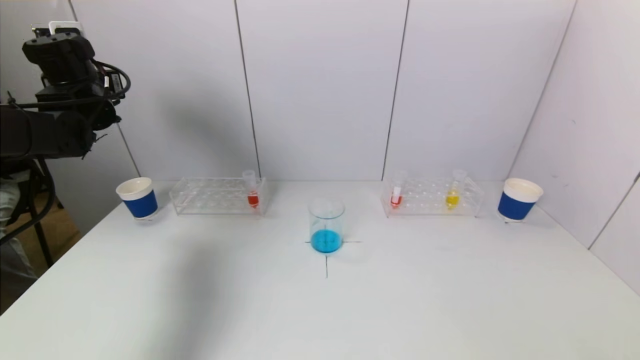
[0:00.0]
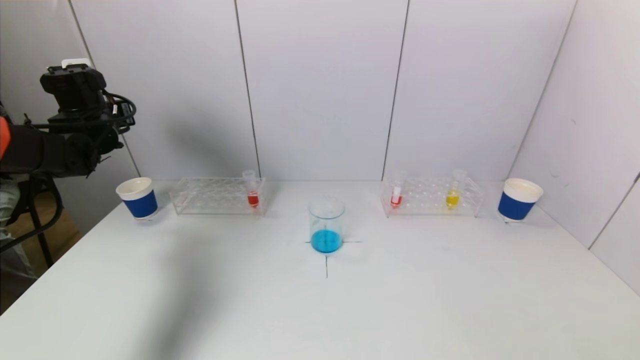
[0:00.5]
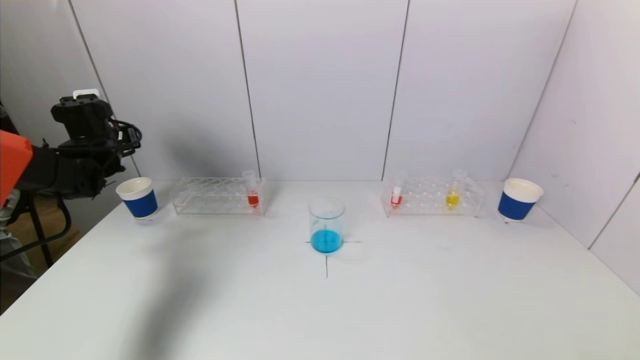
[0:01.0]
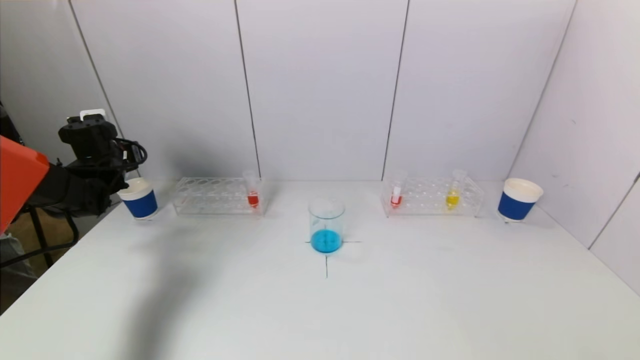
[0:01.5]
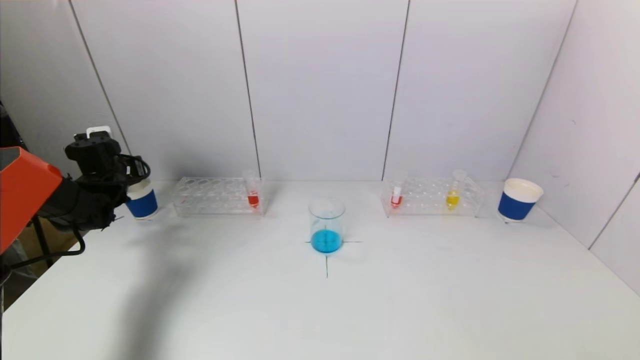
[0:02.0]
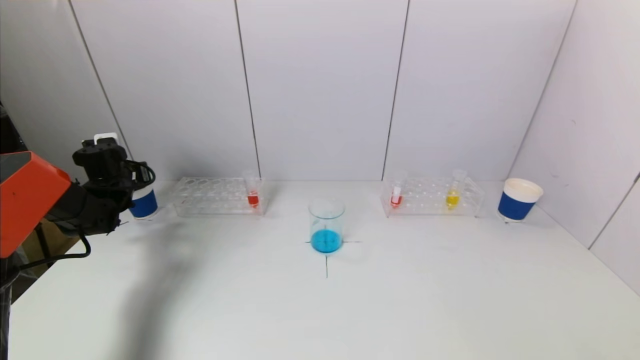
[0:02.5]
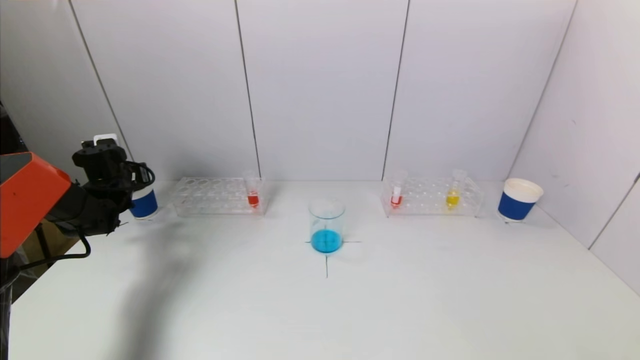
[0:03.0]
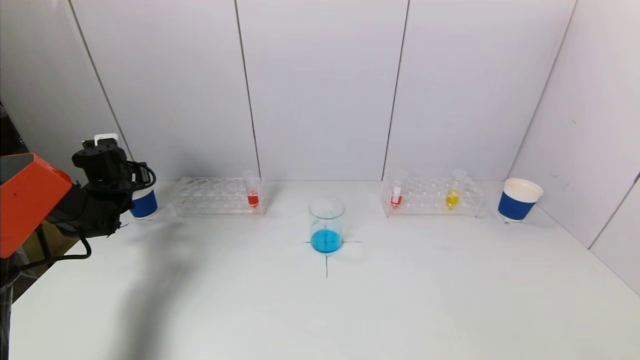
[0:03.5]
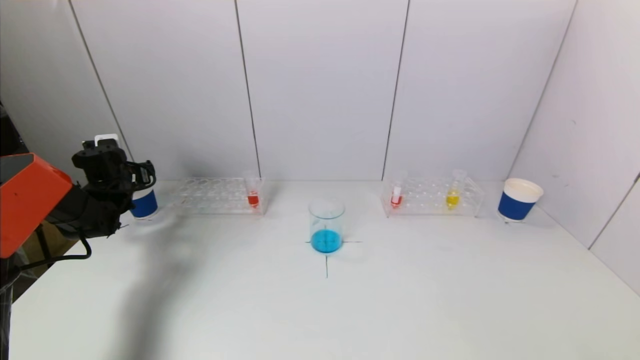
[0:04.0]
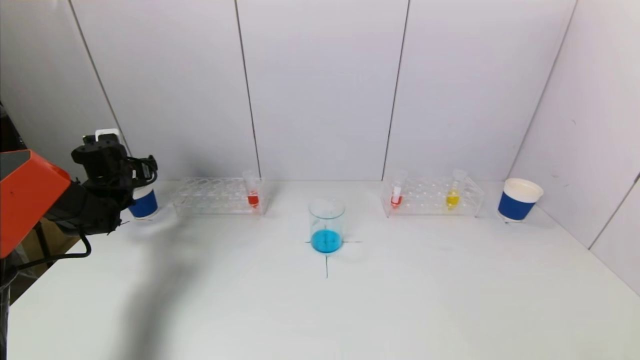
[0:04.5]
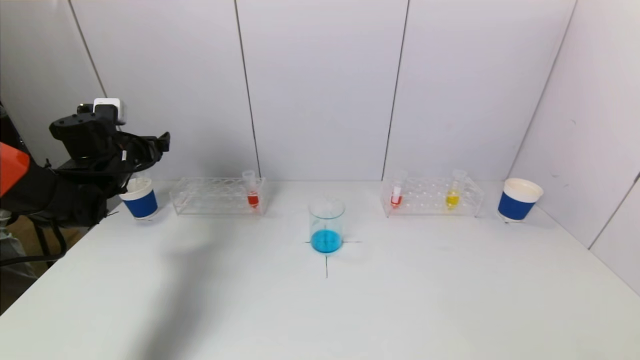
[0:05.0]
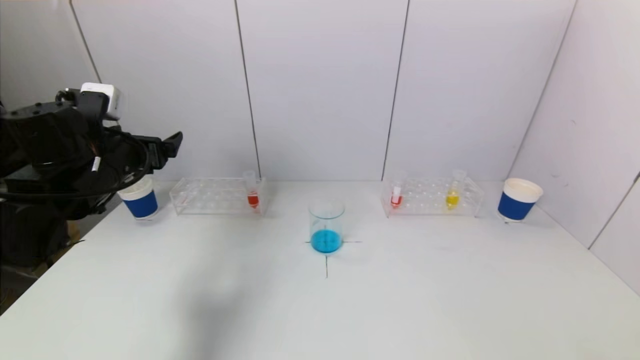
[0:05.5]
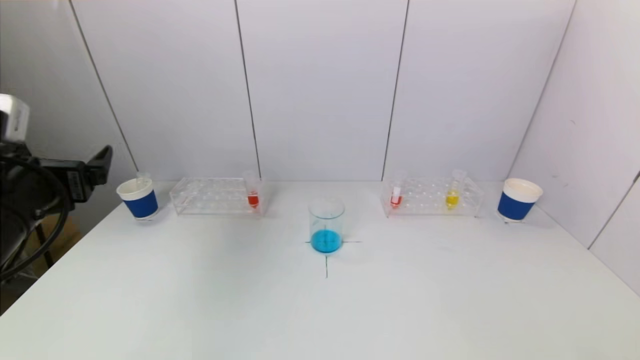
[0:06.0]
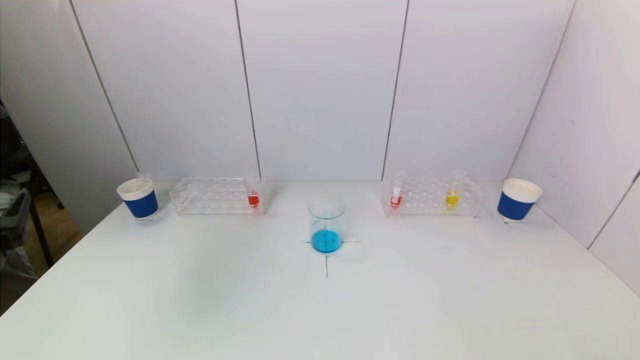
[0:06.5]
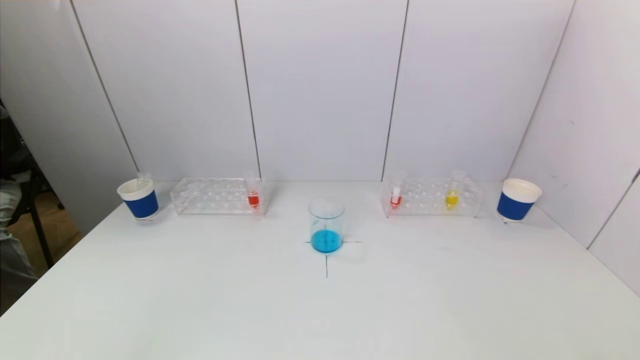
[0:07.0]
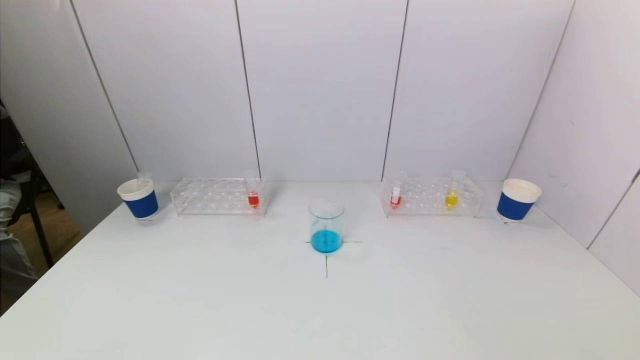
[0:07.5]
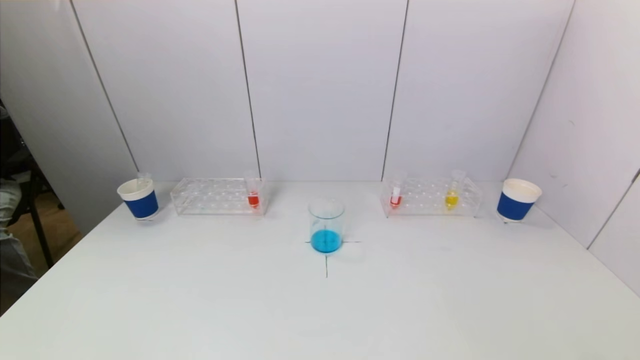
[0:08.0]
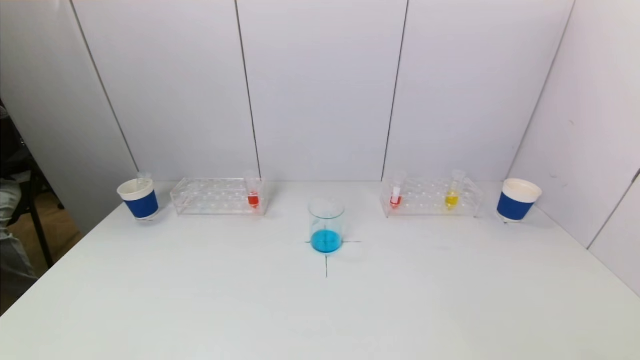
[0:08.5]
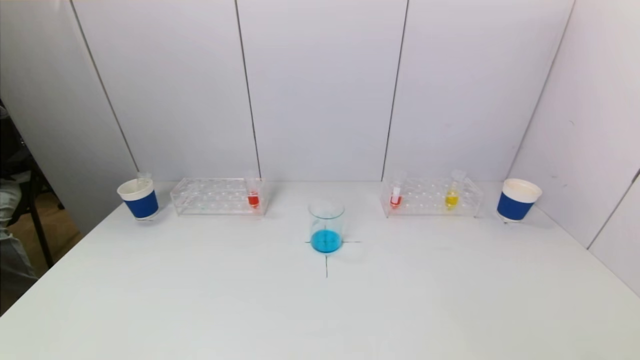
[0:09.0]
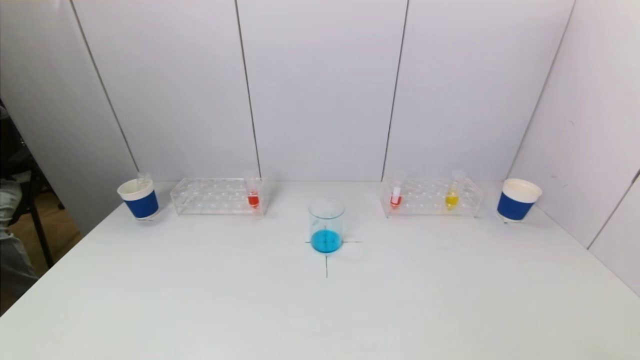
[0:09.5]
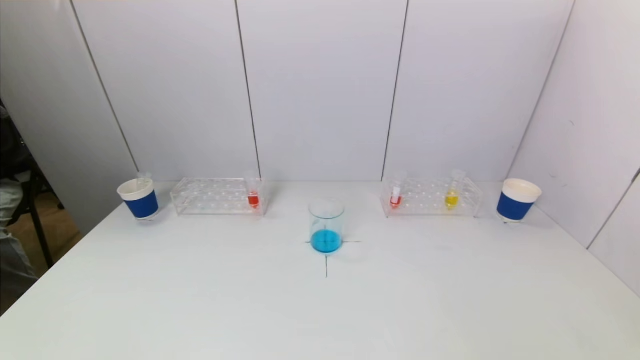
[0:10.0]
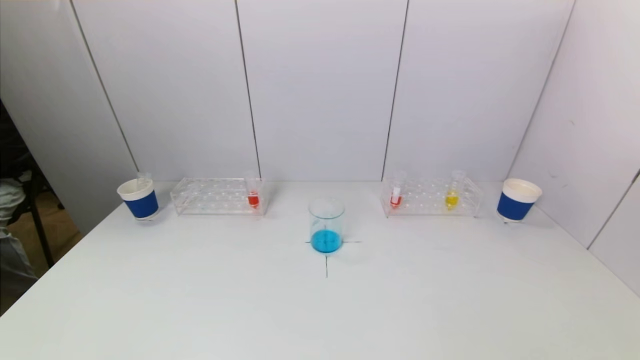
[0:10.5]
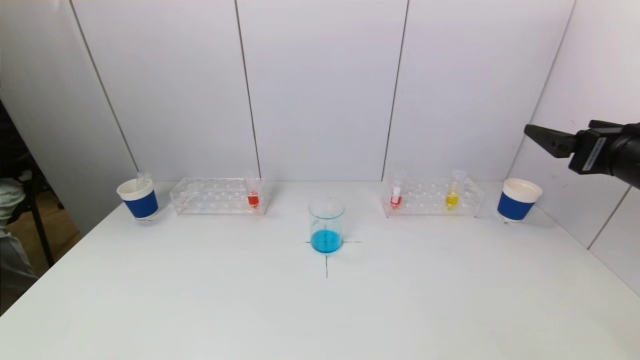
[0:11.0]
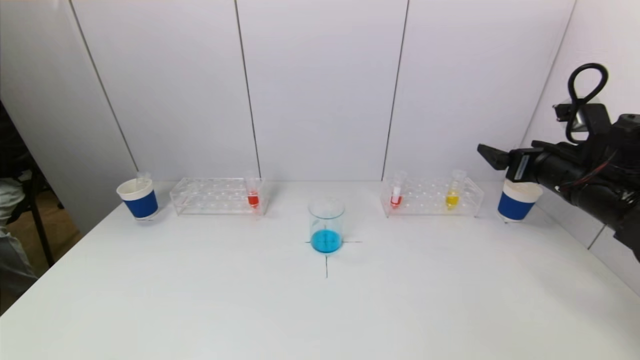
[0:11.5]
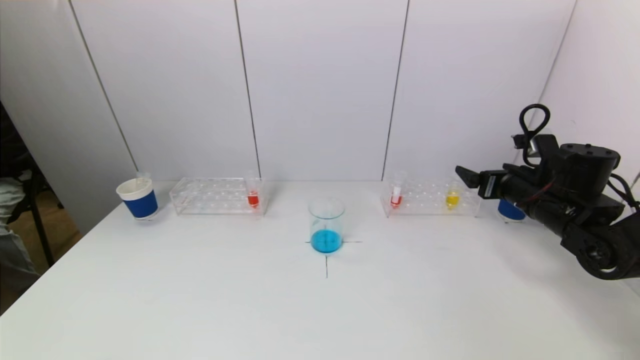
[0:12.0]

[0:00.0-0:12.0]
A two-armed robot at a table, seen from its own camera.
Task of the whole recording: pick up a test tube with pigment on left test tube rack and a test tube with pigment on right test tube rack by grippers and pour them into the beaker.
Step, 0:00.0 to 0:04.0: Place the test tube into the paper cup with the left gripper.
0:00.0 to 0:02.0: The left gripper goes approximately 15 cm downward.
0:02.0 to 0:04.0: The left gripper opens up.
0:04.0 to 0:06.0: The left gripper moves backward, upward and to the right, some 30 cm.
0:06.0 to 0:08.0: The left gripper heads backward and downward, covering approximately 25 cm.
0:10.0 to 0:12.0: The right gripper shifts approximately 35 cm forward.

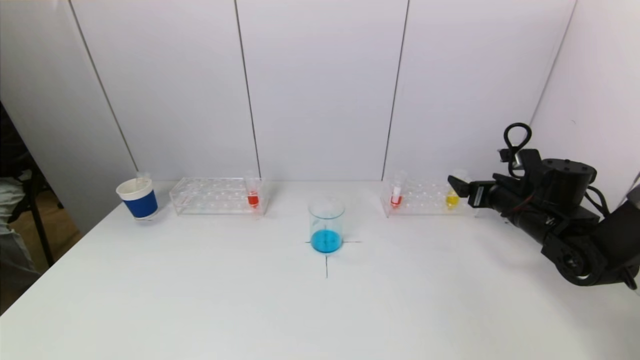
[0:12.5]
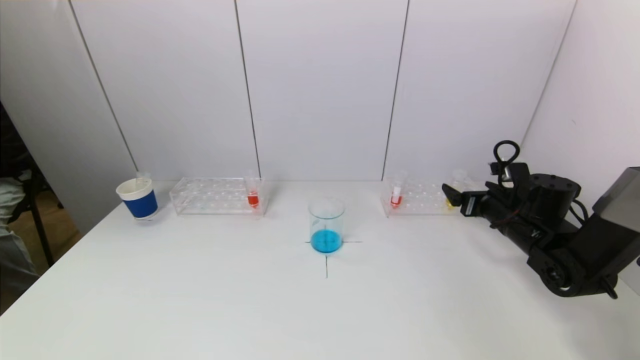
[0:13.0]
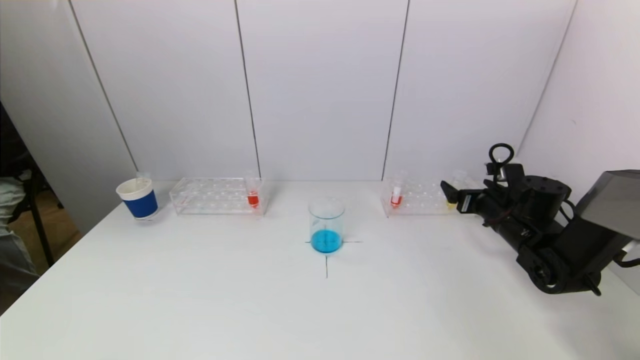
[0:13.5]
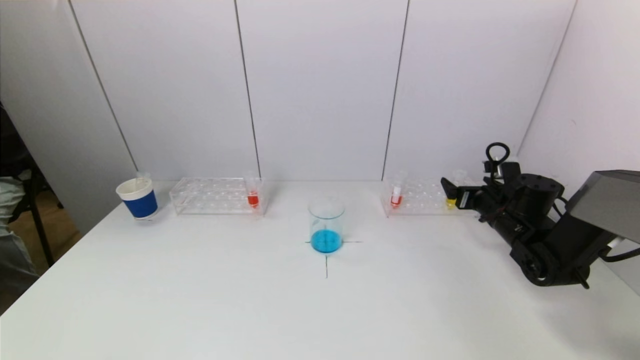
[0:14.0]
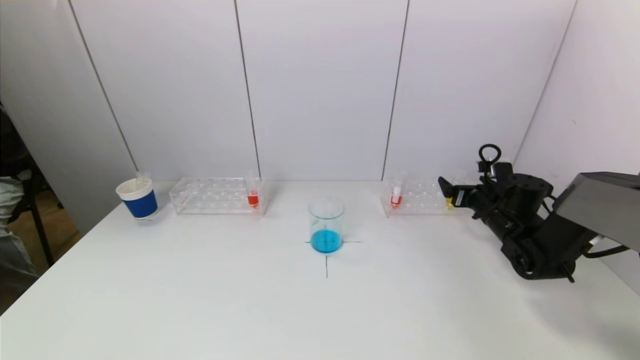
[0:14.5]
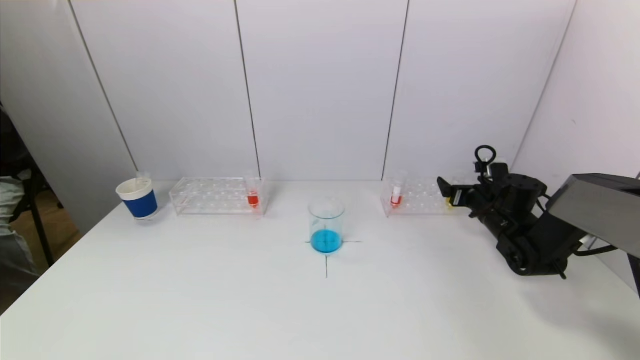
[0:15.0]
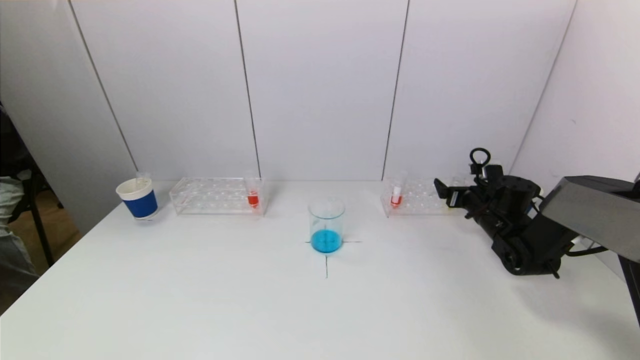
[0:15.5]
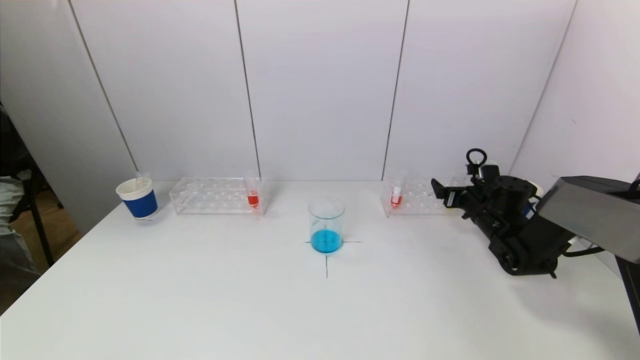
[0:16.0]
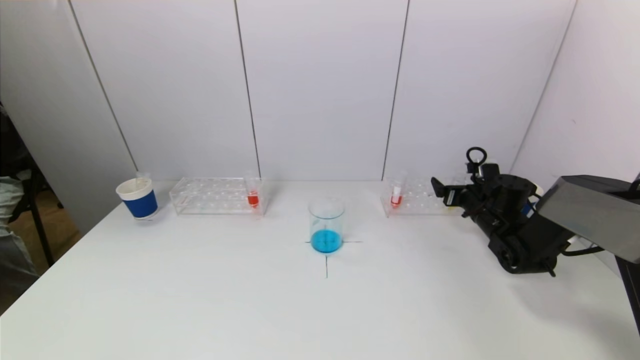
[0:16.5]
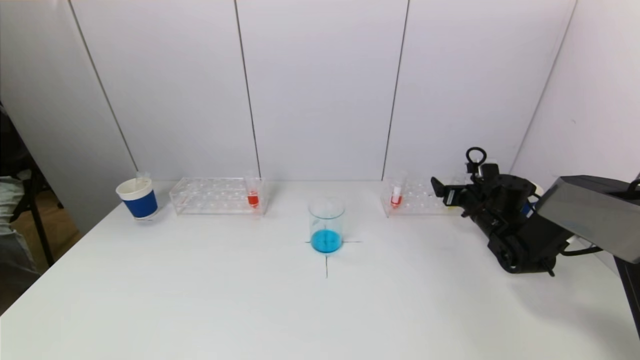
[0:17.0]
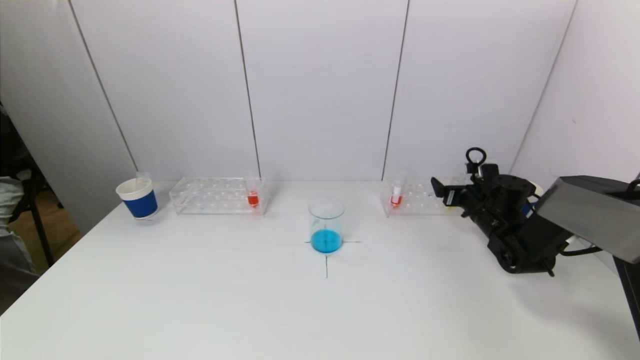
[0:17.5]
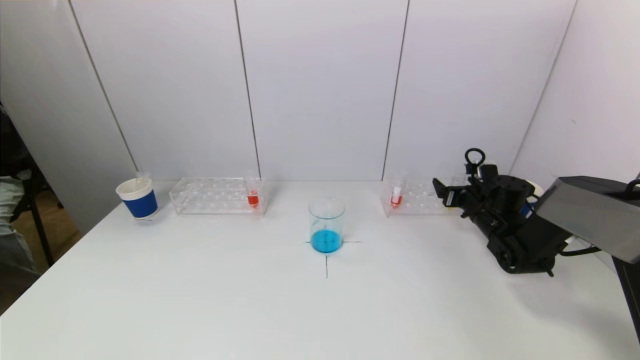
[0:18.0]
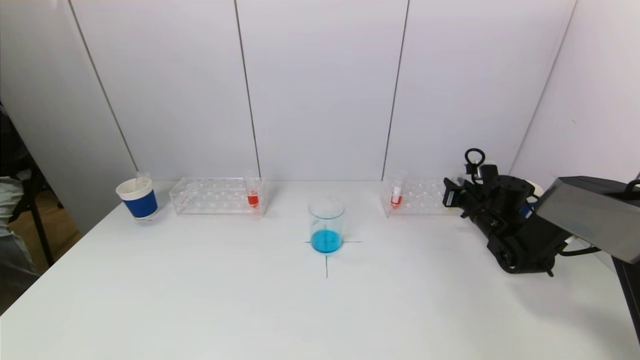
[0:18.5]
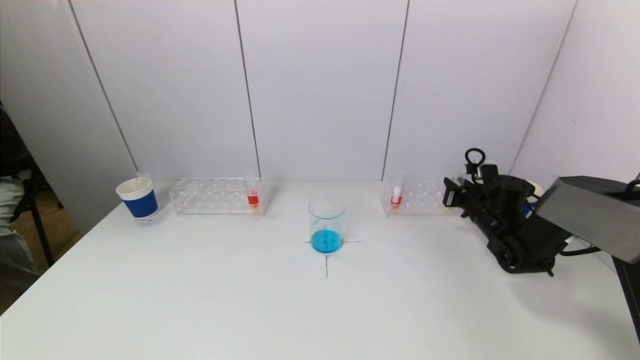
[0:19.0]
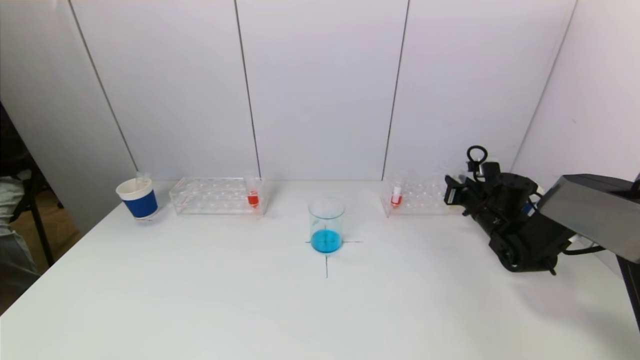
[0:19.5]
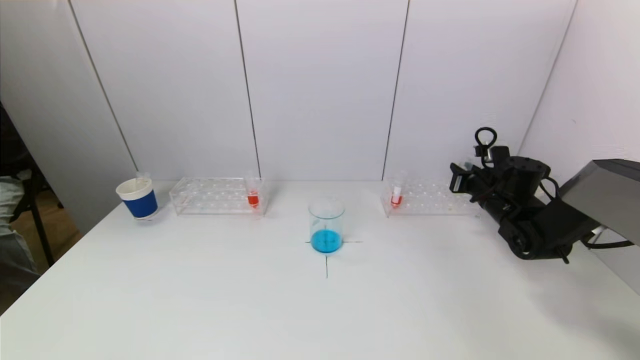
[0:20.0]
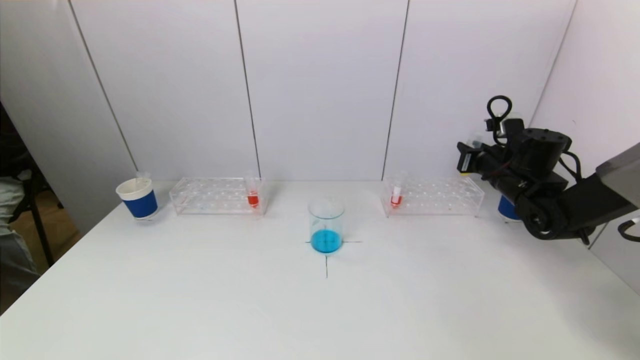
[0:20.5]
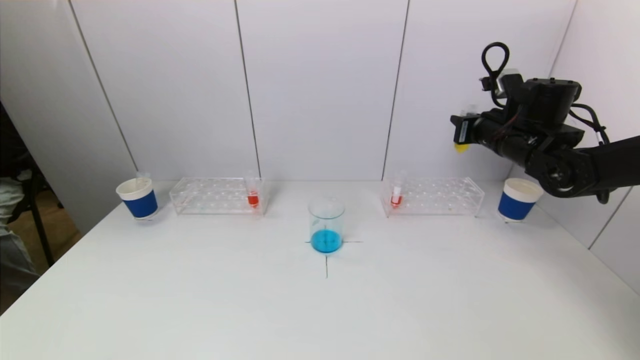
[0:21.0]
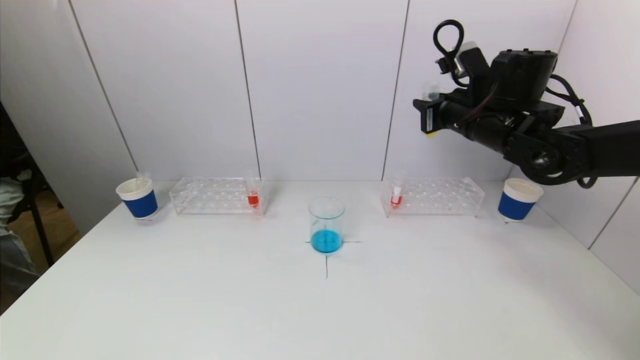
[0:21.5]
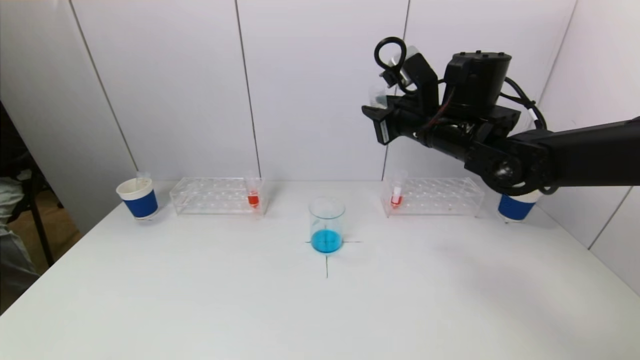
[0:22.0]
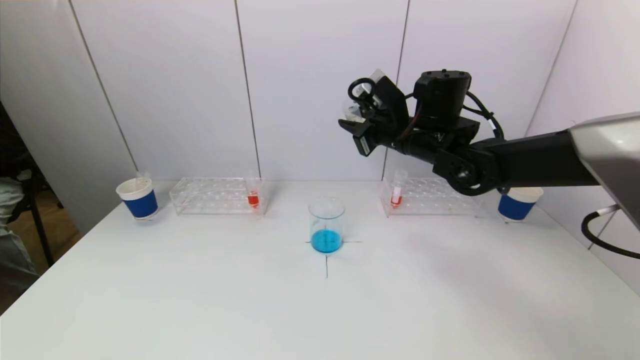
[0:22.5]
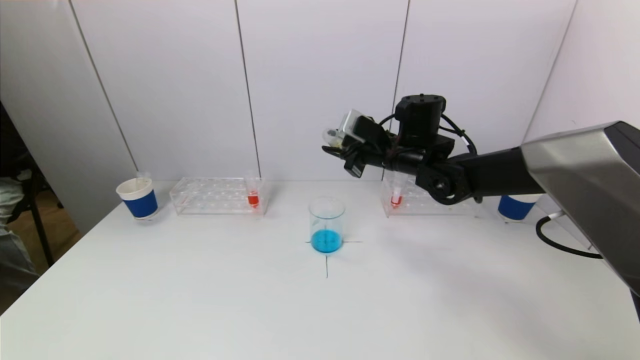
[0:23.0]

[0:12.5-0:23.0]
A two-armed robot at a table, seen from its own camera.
Task of the whole recording: pick up a test tube with pigment on left test tube rack and a test tube with pigment on right test tube rack by grippers and pour them into the beaker.
Step, 0:12.5 to 0:18.5: Grasp the yellow reagent with the right gripper.
0:12.5 to 0:14.5: The right gripper travels downward and forward by roughly 10 cm.
0:14.5 to 0:16.5: The grippers make only small movements.
0:16.5 to 0:19.0: The right gripper closes up.
0:19.0 to 0:21.0: The right gripper heads upward, covering some 20 cm.
0:21.0 to 0:23.0: The right gripper shifts roughly 15 cm to the left.
